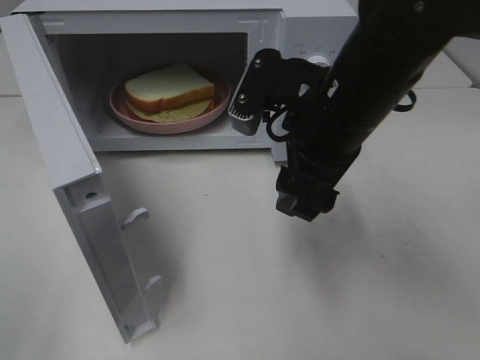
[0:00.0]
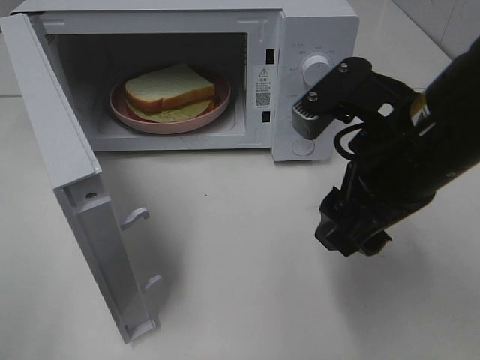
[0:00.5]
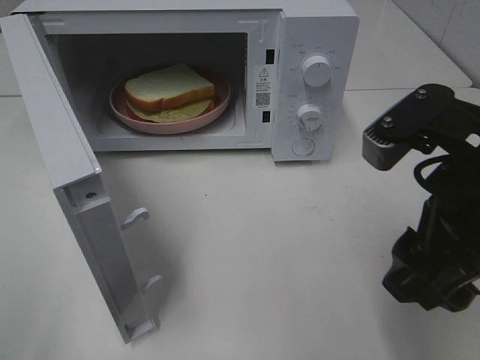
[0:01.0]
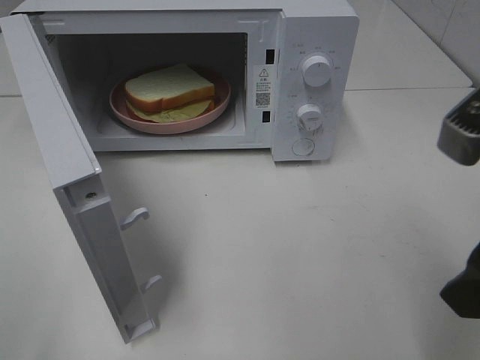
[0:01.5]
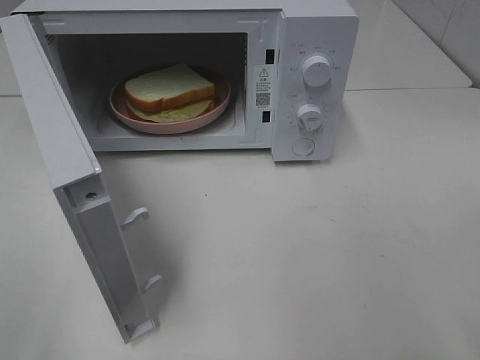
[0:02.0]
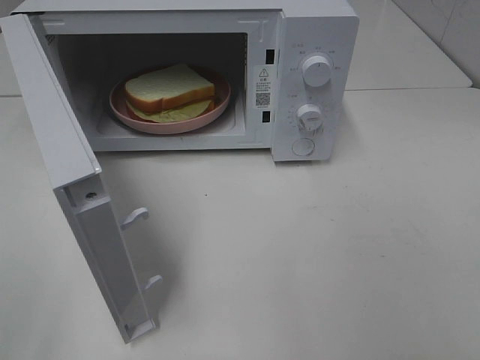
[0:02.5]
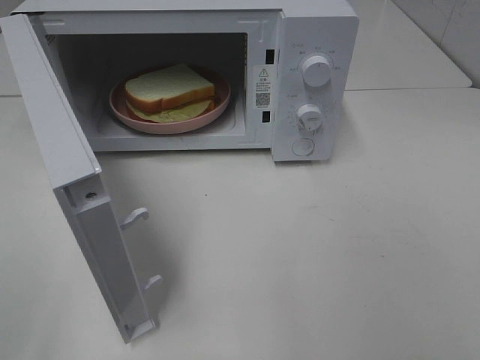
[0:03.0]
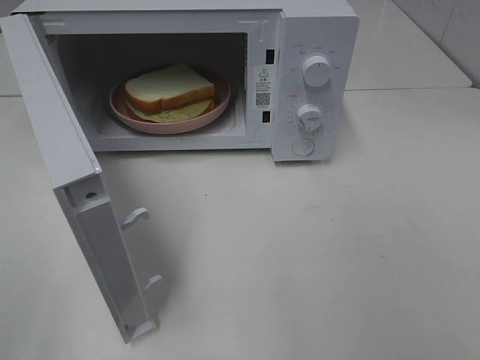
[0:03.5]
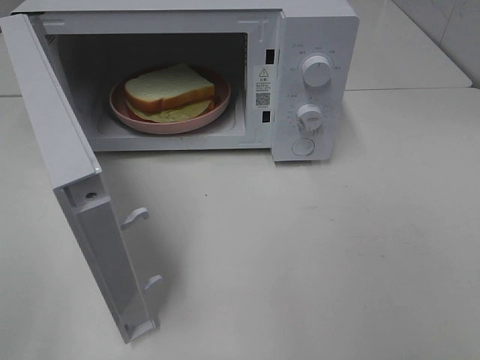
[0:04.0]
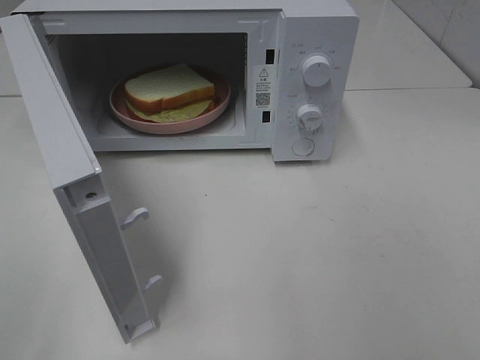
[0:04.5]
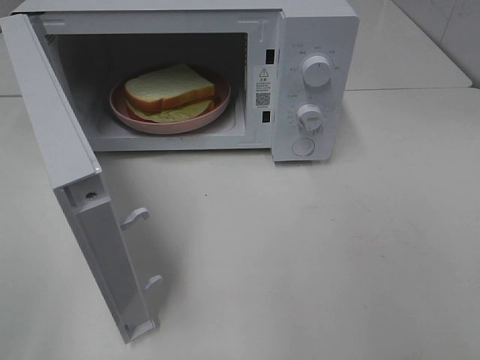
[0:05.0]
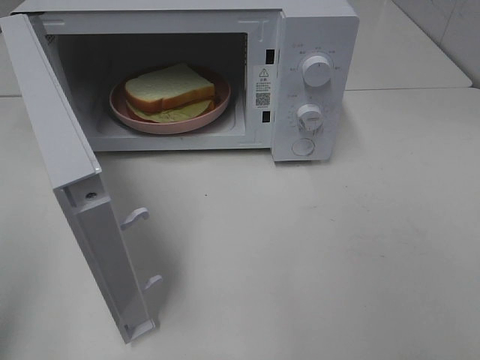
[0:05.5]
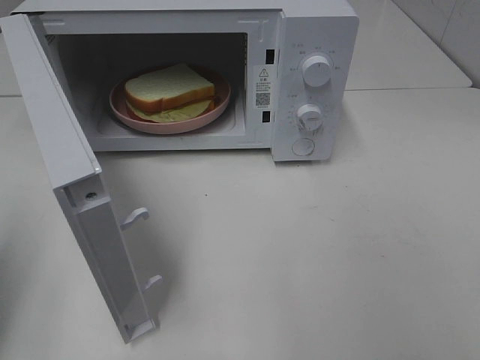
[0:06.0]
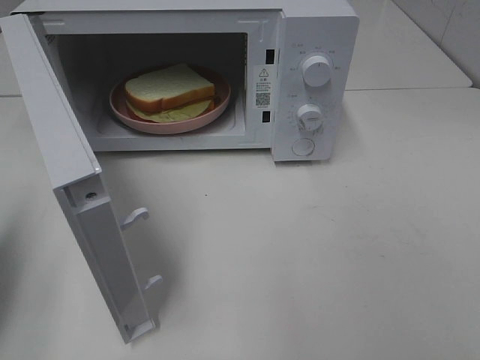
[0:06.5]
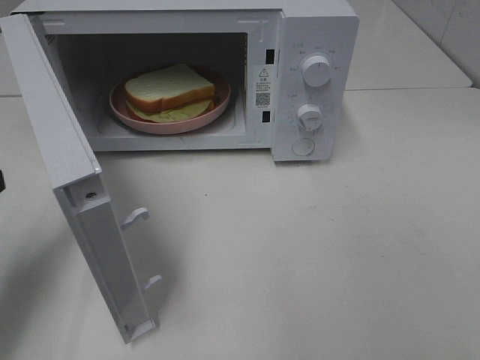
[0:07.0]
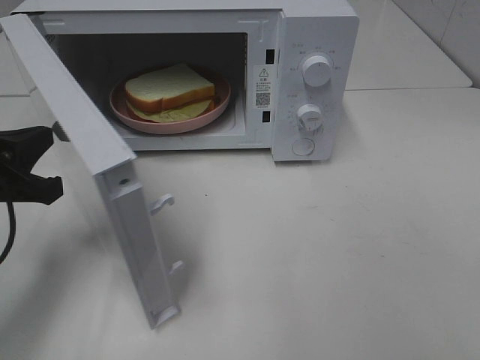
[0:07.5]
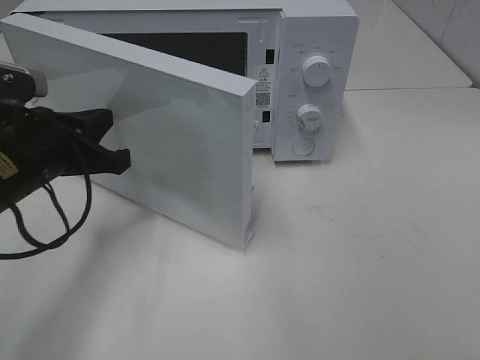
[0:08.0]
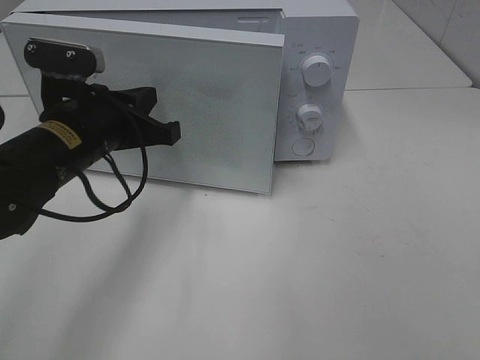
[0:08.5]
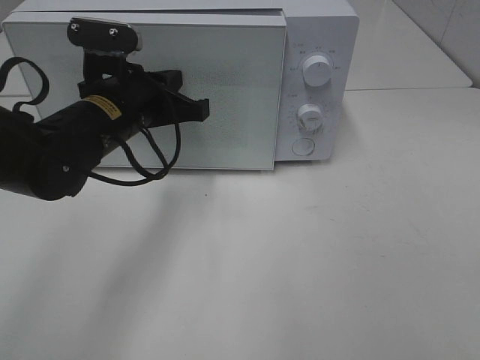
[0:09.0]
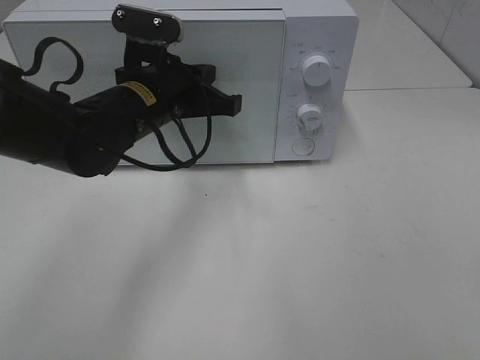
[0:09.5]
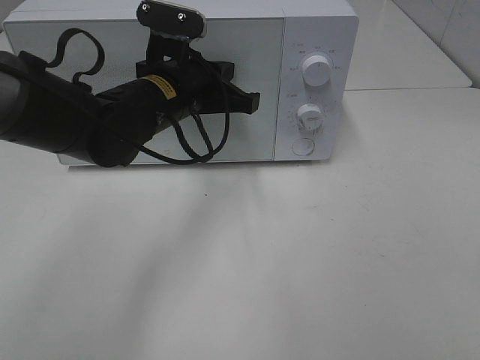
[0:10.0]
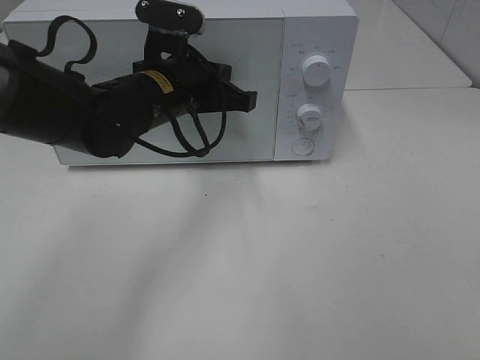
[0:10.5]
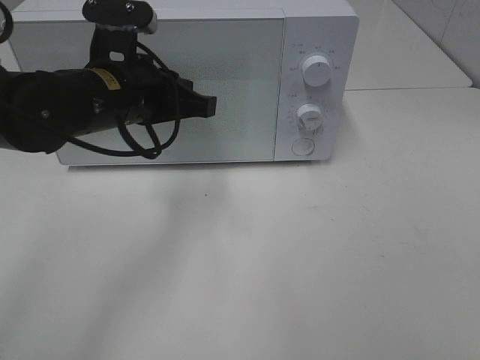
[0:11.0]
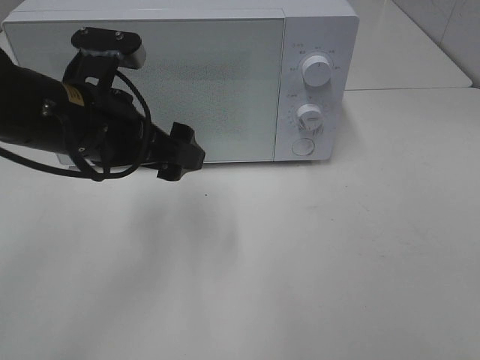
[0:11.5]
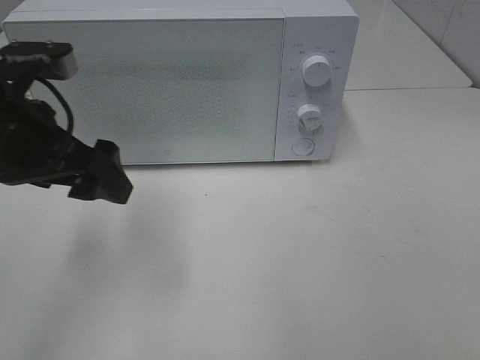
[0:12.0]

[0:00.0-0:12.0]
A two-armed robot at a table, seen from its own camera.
Task of the whole recording: Heat Sandwich.
Step, 0.0 to 11.0 s: Left hand: close the microwave door.
0.0 to 2.0 s: The right gripper is displaced backward and to the right by approximately 25 cm.
4.0 to 6.0 s: The left gripper heads forward, covering some 15 cm, and closes its fingers.
6.0 to 8.0 s: The left gripper goes approximately 20 cm to the right, forward and downward.
8.0 to 10.0 s: The left gripper moves to the right and forward, roughly 15 cm.
10.0 to 12.0 s: The left gripper heads to the left, backward and upward, covering roughly 15 cm, and opens its fingers.

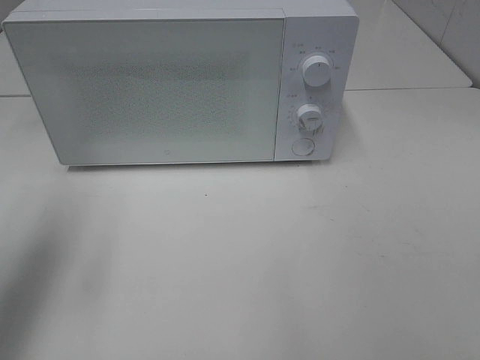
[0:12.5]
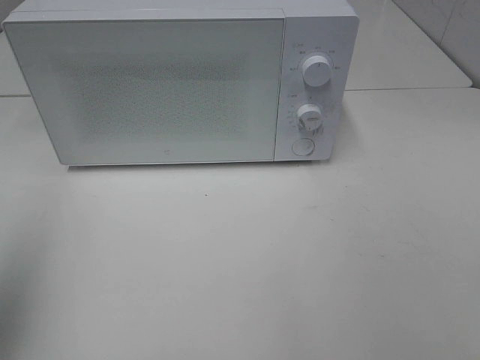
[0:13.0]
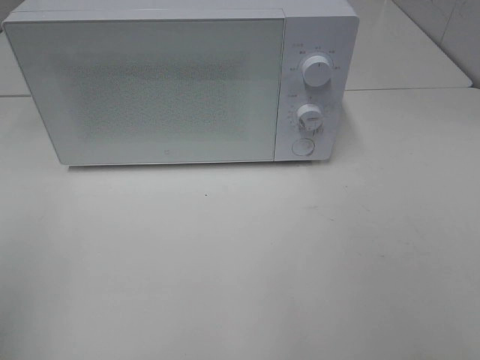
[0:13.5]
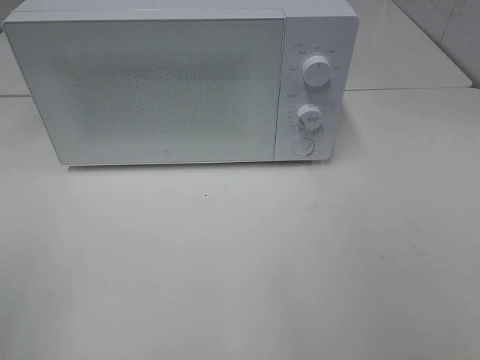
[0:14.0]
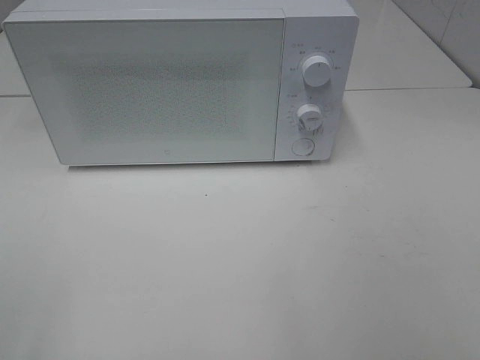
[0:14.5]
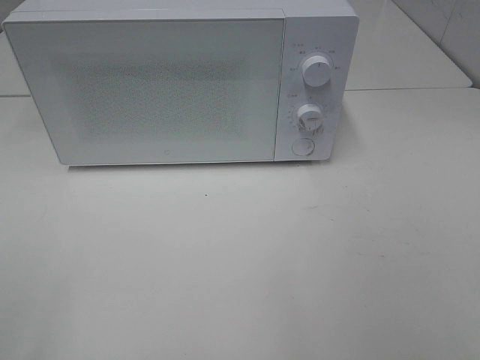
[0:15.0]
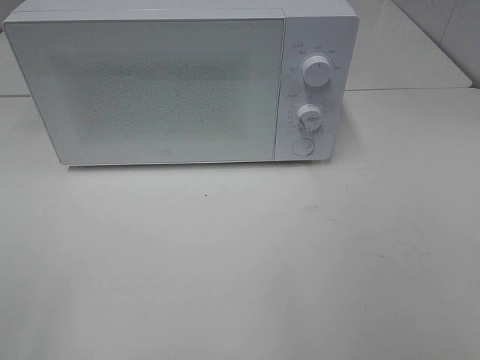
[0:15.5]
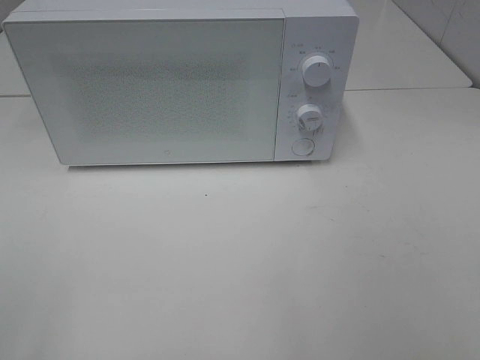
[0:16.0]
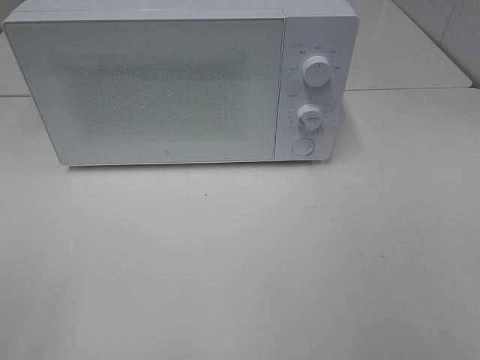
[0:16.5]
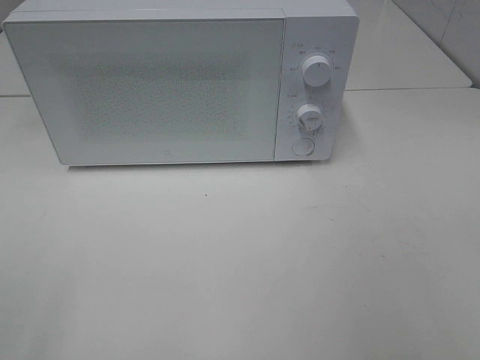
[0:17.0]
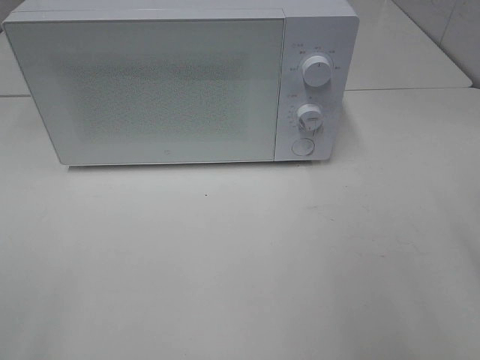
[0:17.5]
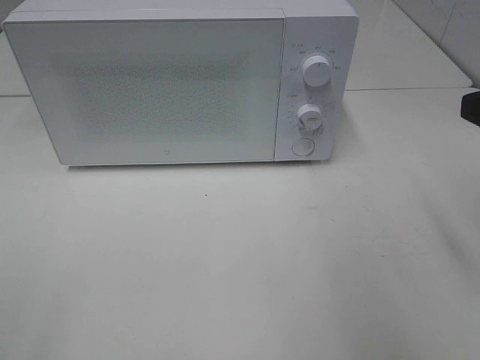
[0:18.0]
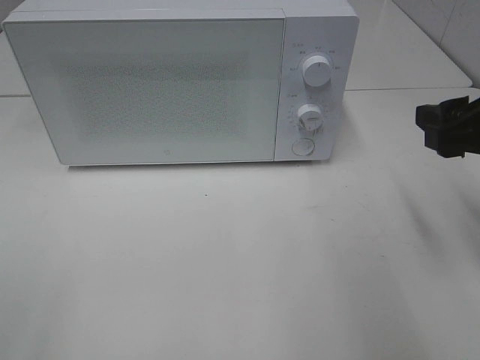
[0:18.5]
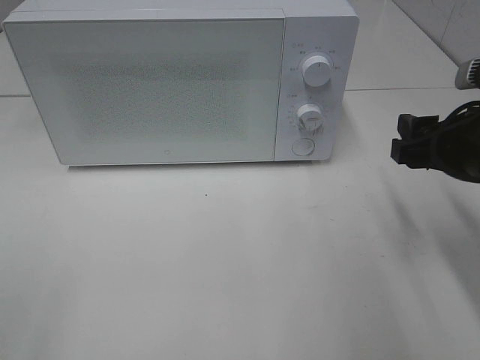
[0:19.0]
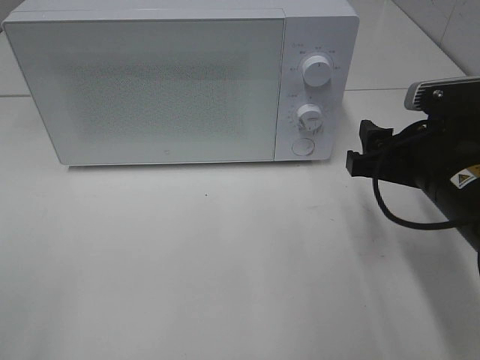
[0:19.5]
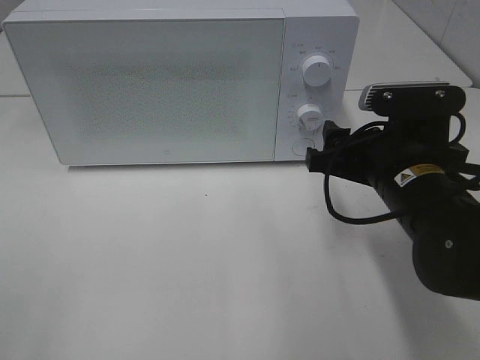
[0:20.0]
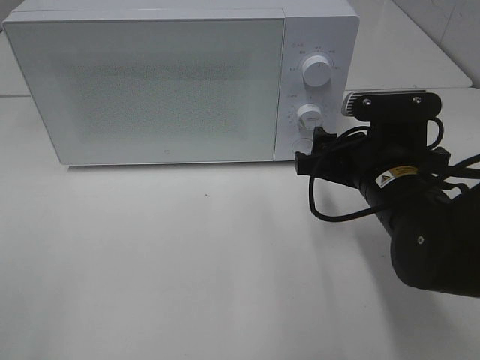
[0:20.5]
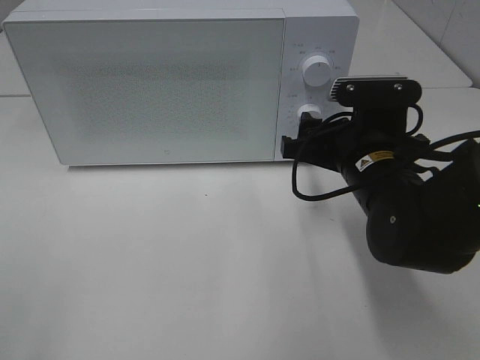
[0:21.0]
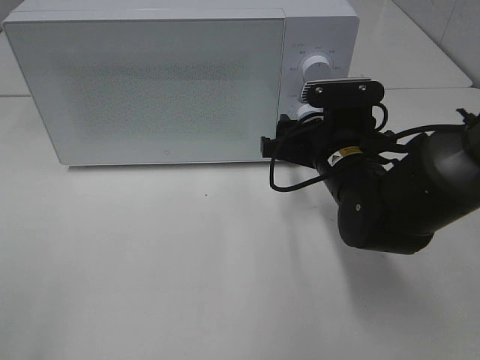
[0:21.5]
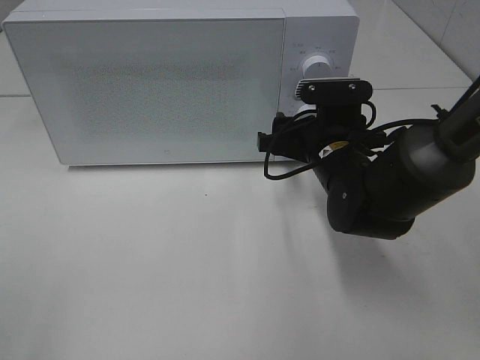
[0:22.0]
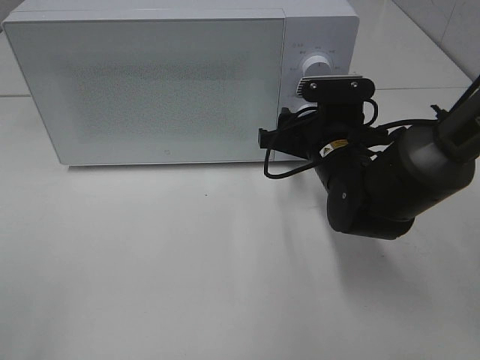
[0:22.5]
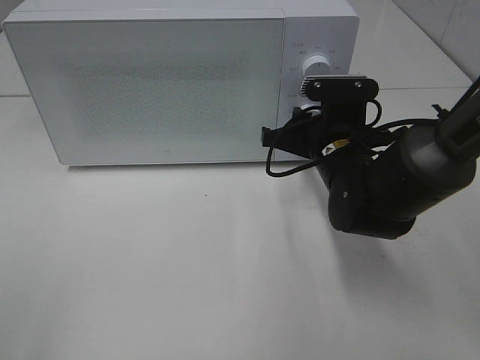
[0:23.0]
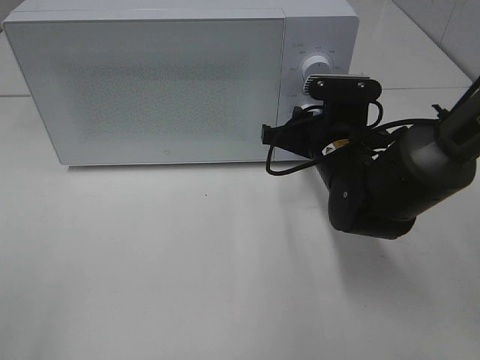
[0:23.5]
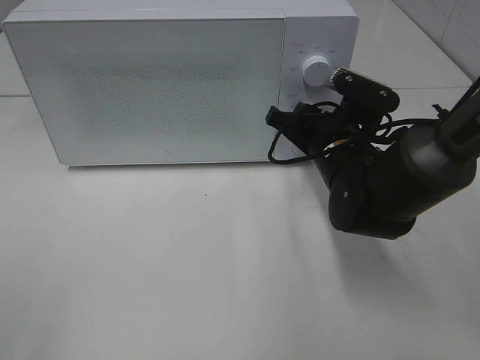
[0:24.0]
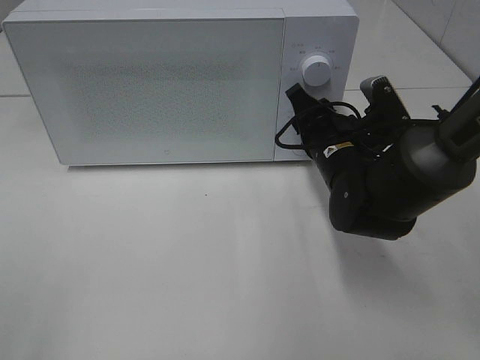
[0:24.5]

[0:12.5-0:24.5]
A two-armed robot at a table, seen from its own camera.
Task of the whole recording: Heat Sandwich.
12.5 to 14.5 s: The left gripper moves backward, approximately 20 cm.
14.5 to 16.5 s: Both grippers stay about where they are.
16.5 to 18.5 s: The right gripper shifts roughly 20 cm forward.
18.5 to 20.5 s: The right gripper travels to the left and downward by roughly 15 cm.
20.5 to 22.5 s: The right gripper moves forward, roughly 5 cm.

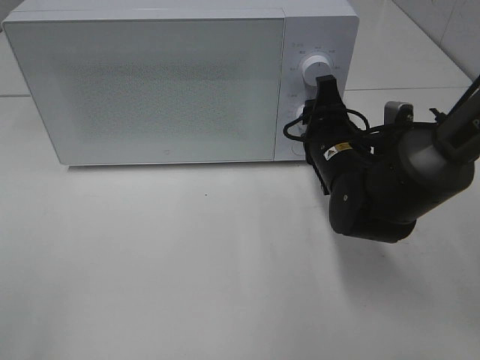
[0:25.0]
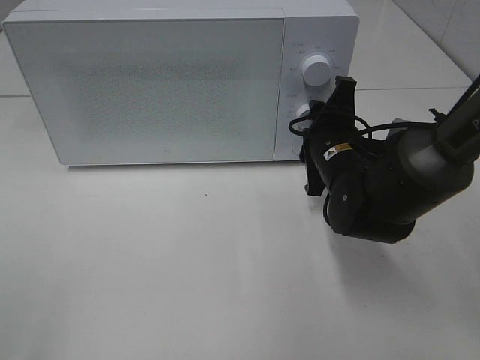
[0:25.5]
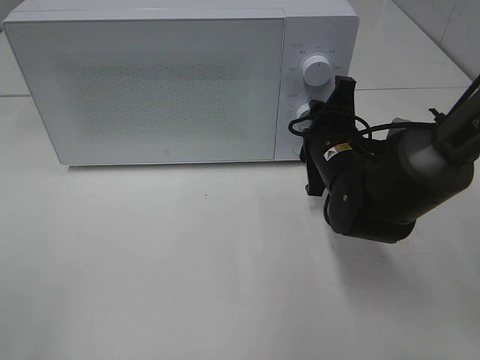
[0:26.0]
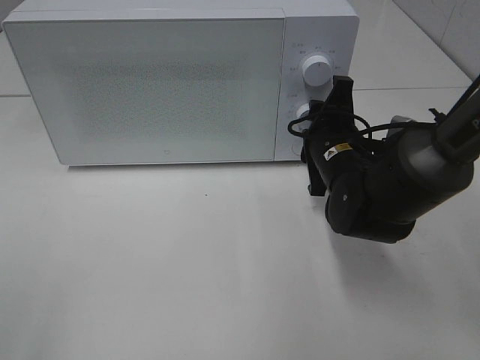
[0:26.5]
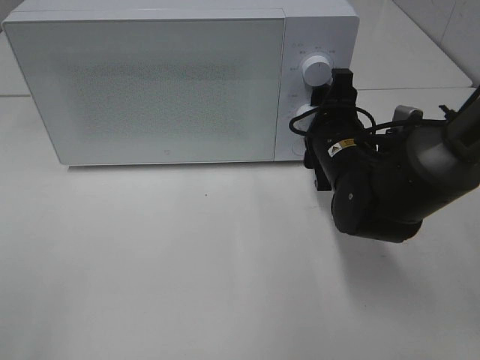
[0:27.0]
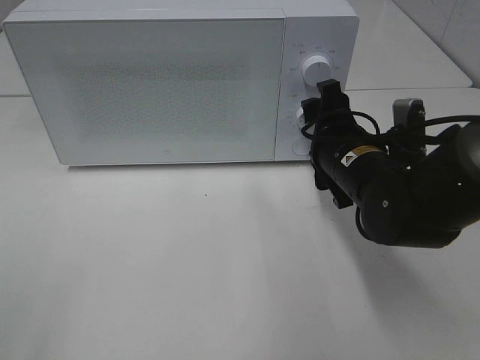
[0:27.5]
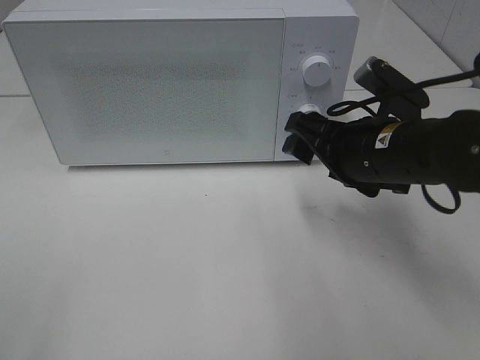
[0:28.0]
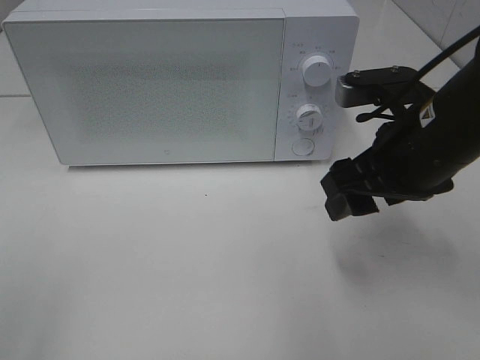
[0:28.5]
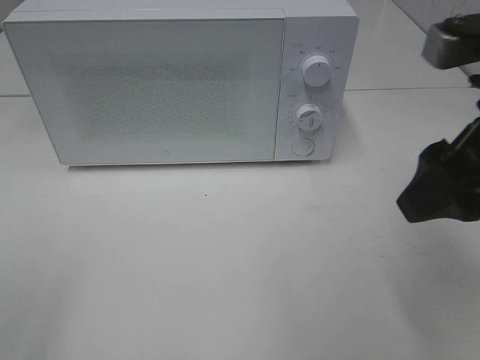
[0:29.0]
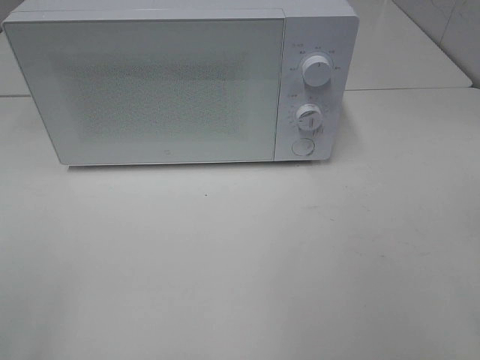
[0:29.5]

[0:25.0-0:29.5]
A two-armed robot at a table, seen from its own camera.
Task of the whole recording: Heat Sandwich.
Step, 25.0 to 27.5 s: Right hand: twist timer button.
25.0 to 27.0 s: There are only small adjustments of the grippers.
27.0 to 29.5 s: The right gripper is displaced backward, upward and to the right by about 35 cm.
